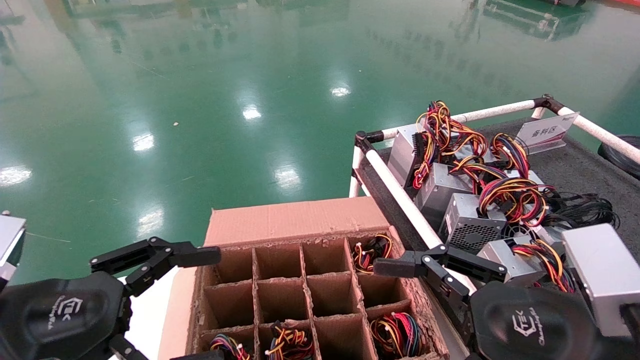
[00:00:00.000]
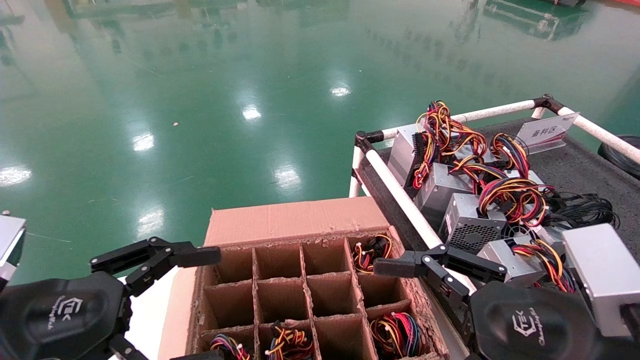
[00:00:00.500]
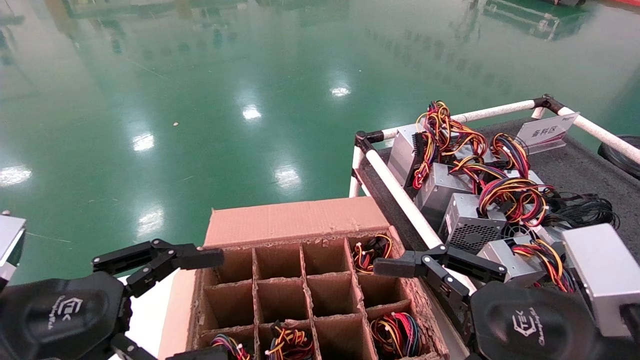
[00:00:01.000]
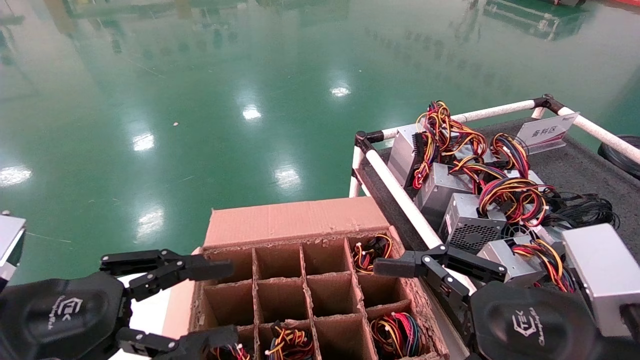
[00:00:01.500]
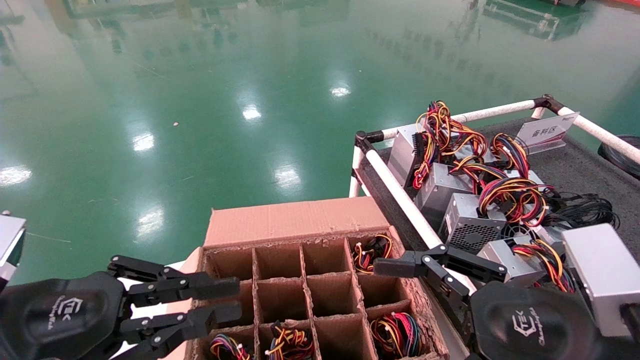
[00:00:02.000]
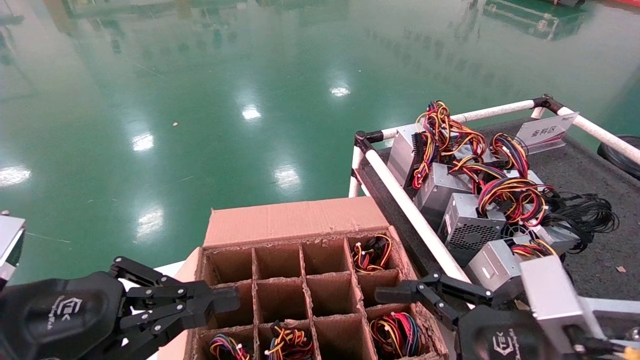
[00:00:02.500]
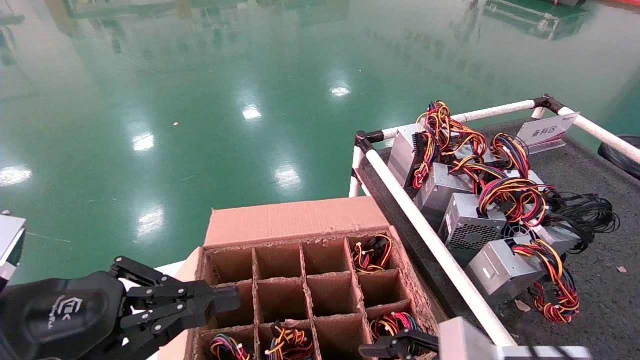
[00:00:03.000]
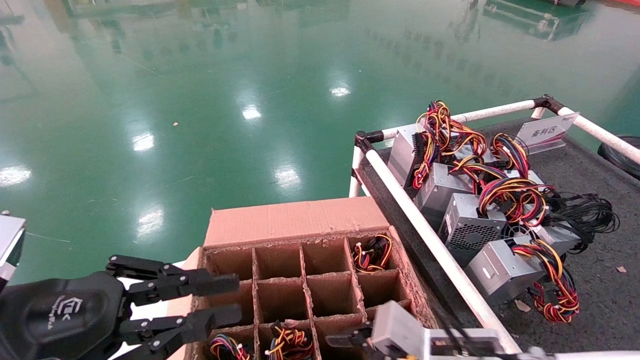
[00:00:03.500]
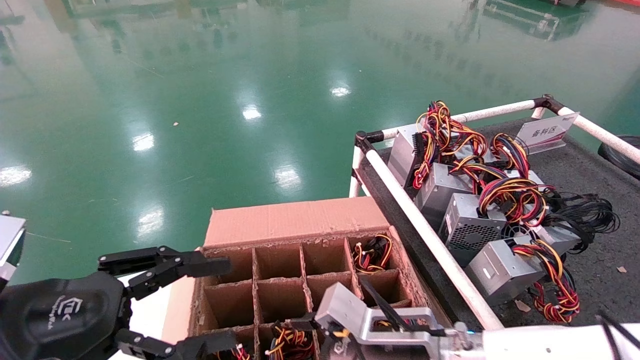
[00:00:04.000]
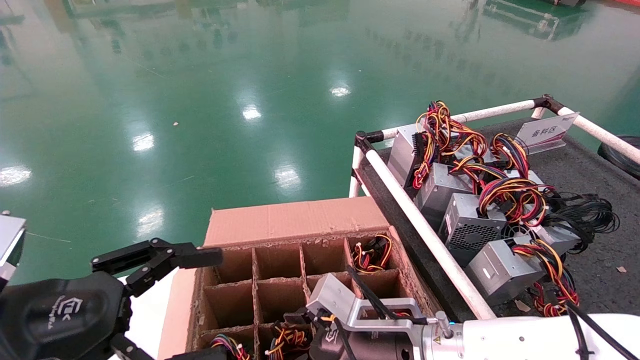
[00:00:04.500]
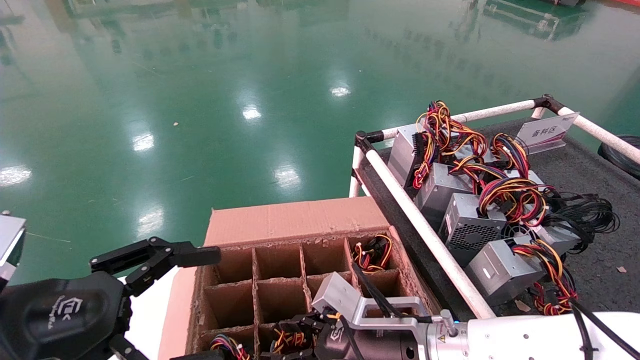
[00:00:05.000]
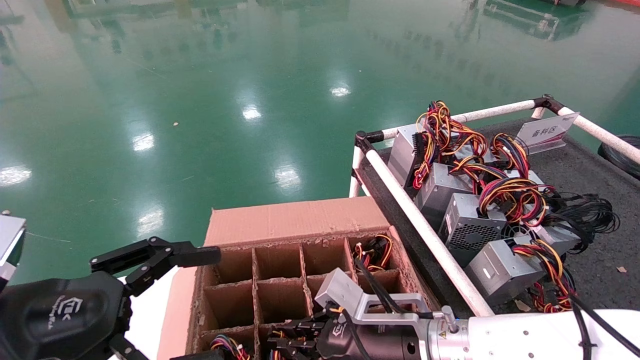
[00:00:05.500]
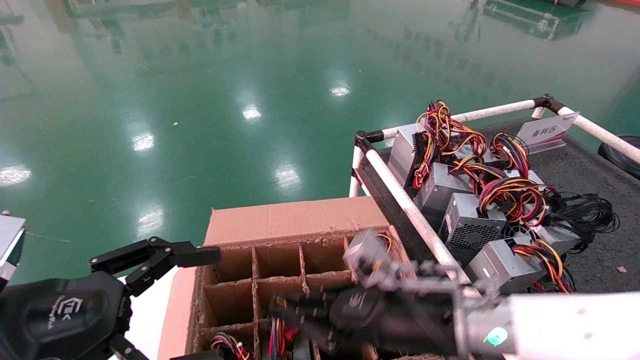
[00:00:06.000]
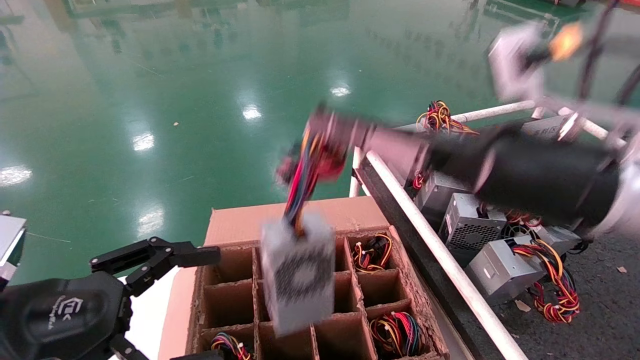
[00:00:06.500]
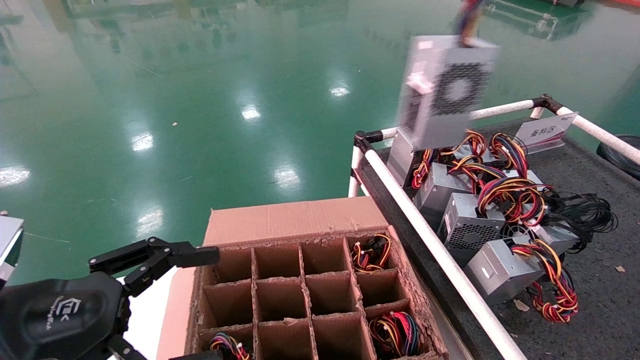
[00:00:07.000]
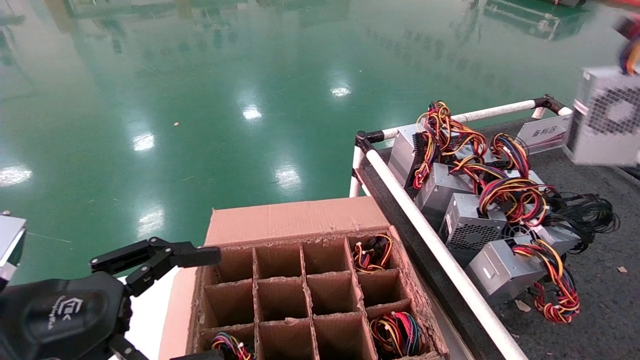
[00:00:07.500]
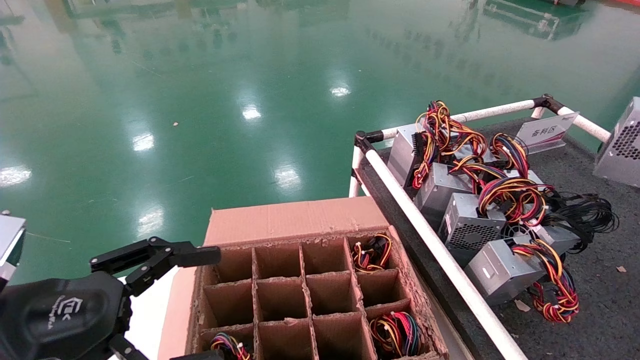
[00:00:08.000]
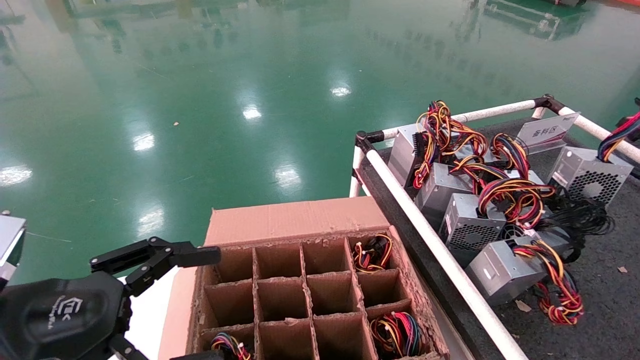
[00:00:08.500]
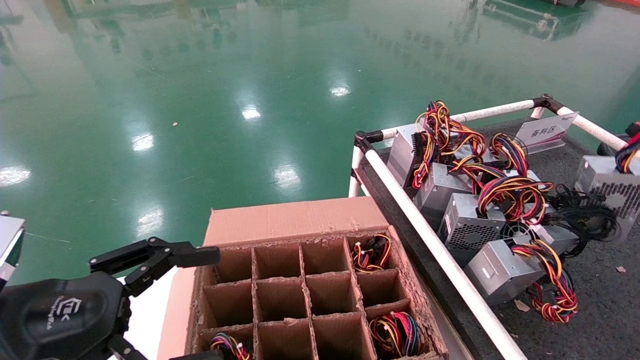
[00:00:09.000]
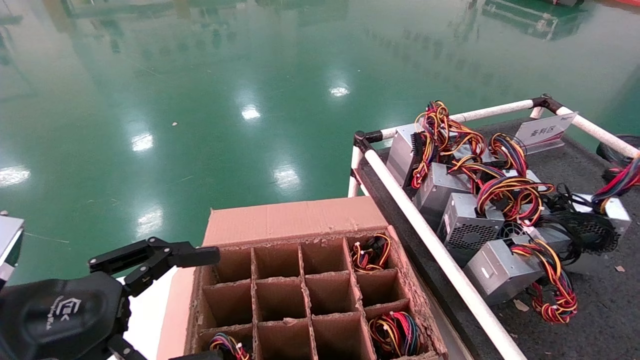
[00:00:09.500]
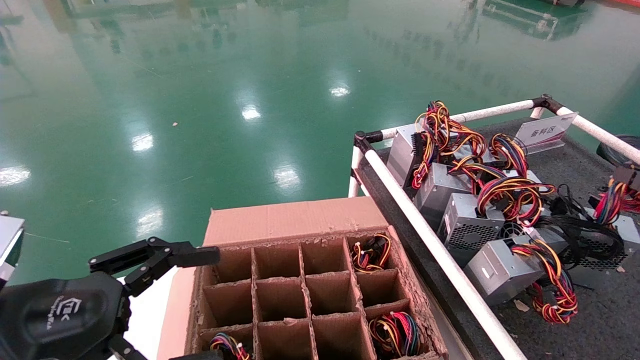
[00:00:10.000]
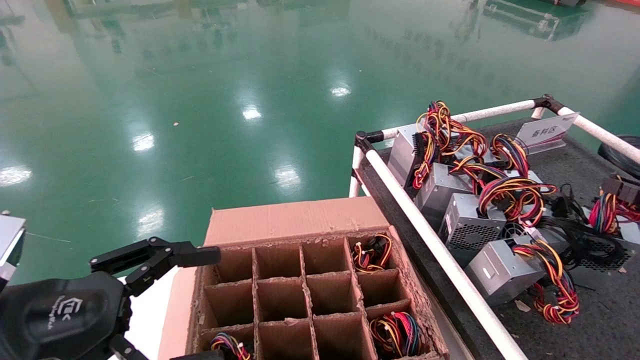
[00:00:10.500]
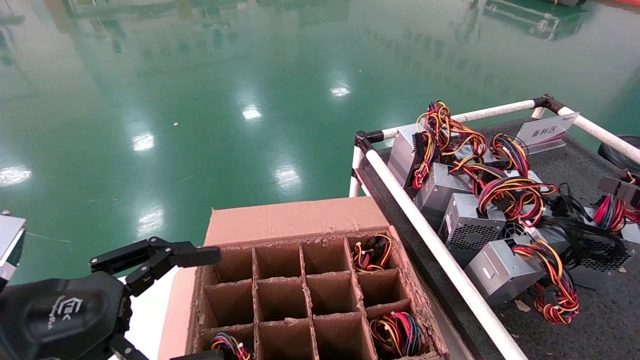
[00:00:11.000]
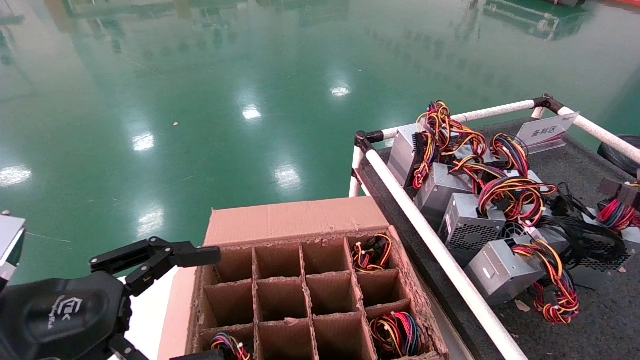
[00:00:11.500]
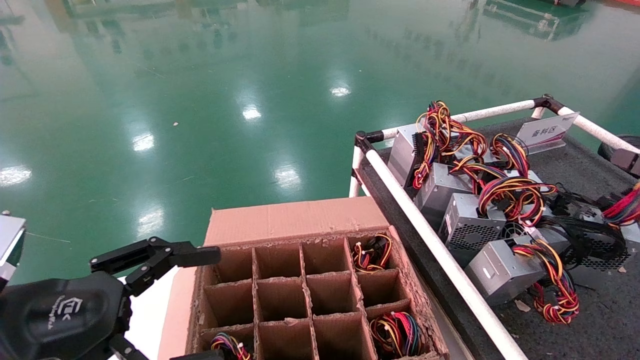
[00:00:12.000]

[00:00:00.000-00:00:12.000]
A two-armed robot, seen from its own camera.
Step, 00:00:03.000 to 00:00:05.500: Grab and lift the power supply from the large box.
Step, 00:00:06.000 to 00:00:11.000: Place the power supply on the operating table.
00:00:00.000 to 00:00:02.000: The left gripper closes.
00:00:02.000 to 00:00:04.000: The right gripper heads to the left, forward and downward, covering approximately 20 cm.
00:00:04.000 to 00:00:06.000: The left gripper opens its fingers. The right gripper heads upward, covering about 5 cm, and closes its fingers.
00:00:06.000 to 00:00:08.000: The right gripper heads to the right and upward, covering about 50 cm.
00:00:08.000 to 00:00:10.000: The right gripper travels downward by roughly 15 cm.
00:00:10.000 to 00:00:12.000: The right gripper opens.

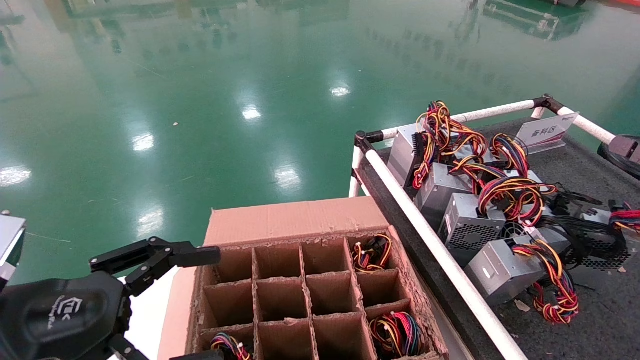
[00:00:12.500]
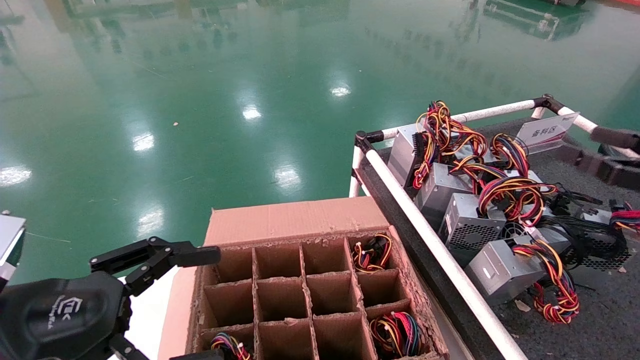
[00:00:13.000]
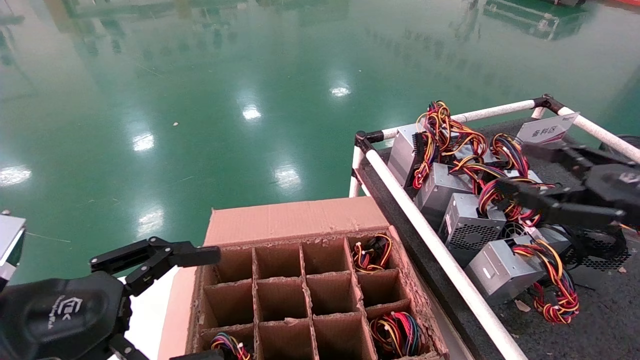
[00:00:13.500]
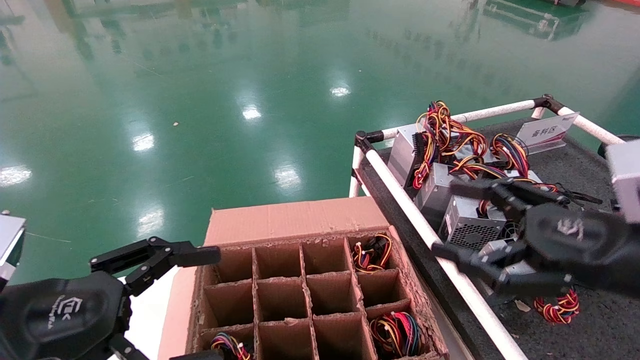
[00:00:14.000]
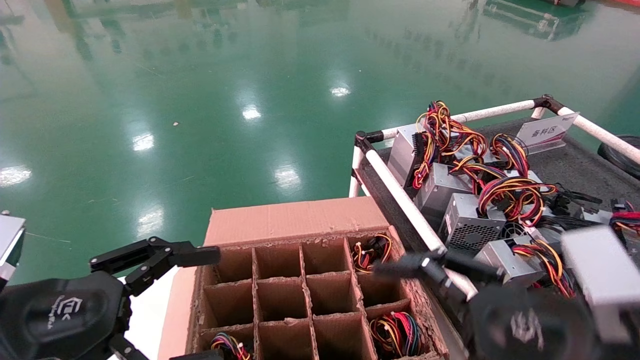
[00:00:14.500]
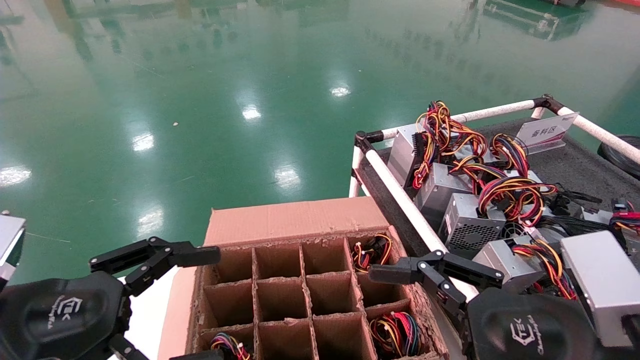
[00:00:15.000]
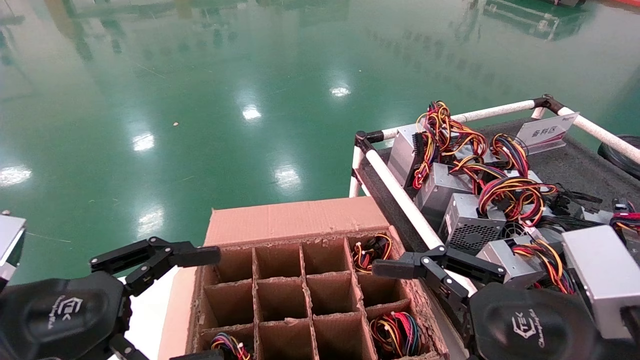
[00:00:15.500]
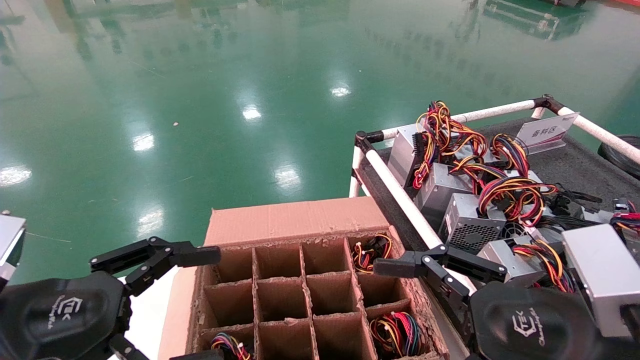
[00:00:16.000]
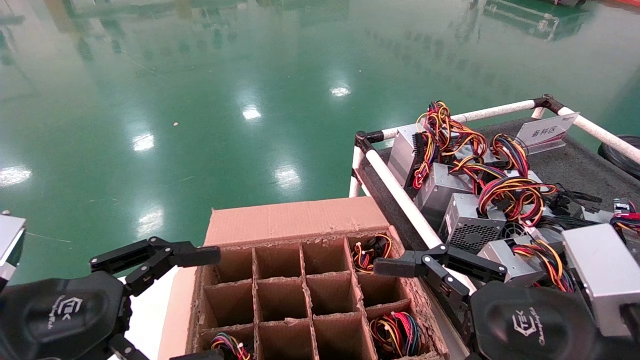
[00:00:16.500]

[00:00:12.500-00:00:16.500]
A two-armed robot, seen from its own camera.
00:00:12.500 to 00:00:14.500: The right gripper travels to the left by approximately 25 cm.
00:00:14.500 to 00:00:16.500: Neither gripper changes place.
